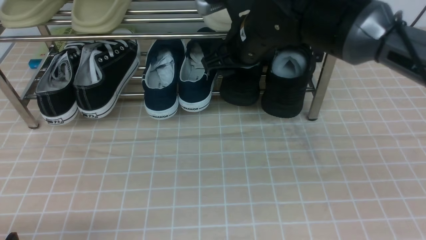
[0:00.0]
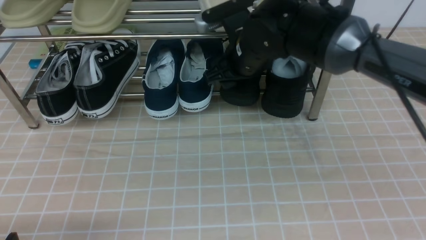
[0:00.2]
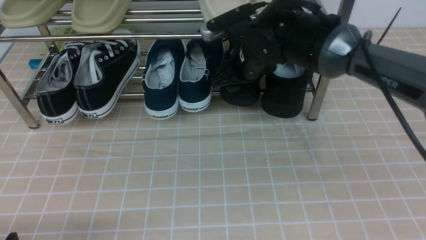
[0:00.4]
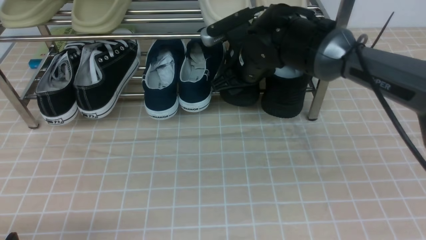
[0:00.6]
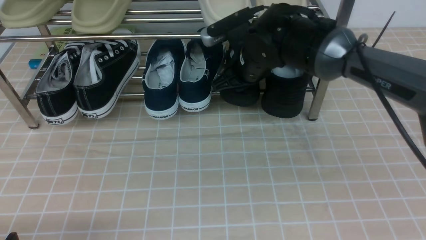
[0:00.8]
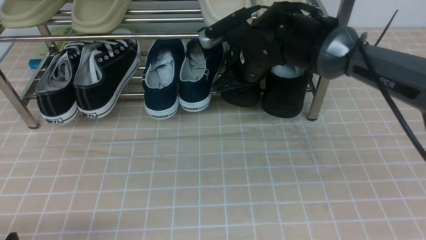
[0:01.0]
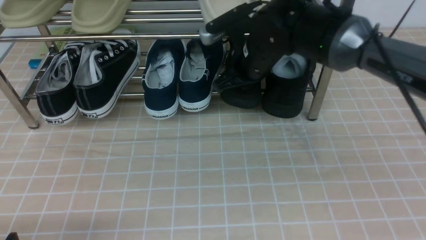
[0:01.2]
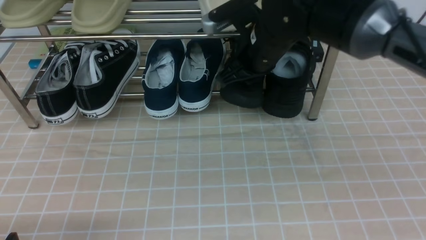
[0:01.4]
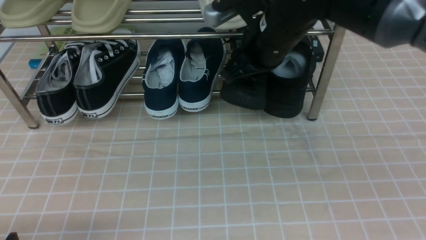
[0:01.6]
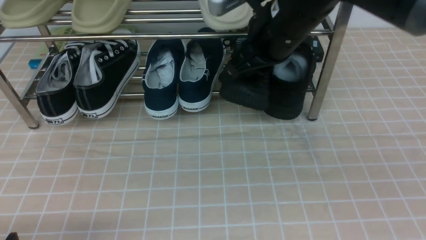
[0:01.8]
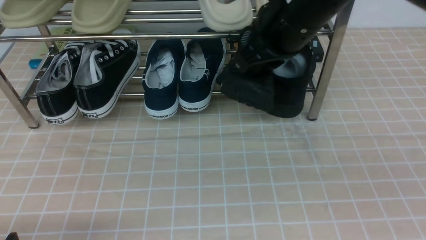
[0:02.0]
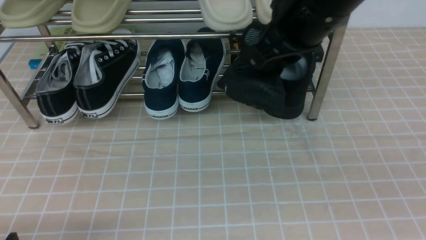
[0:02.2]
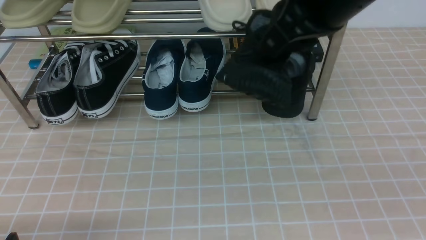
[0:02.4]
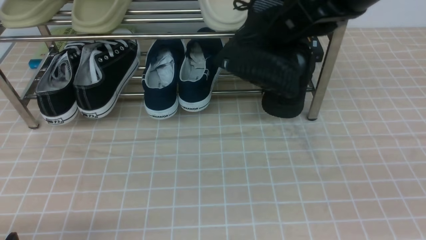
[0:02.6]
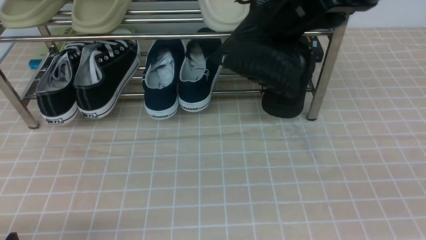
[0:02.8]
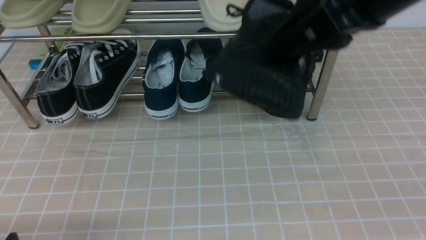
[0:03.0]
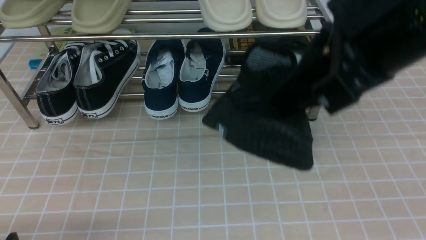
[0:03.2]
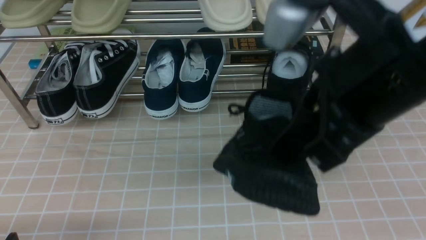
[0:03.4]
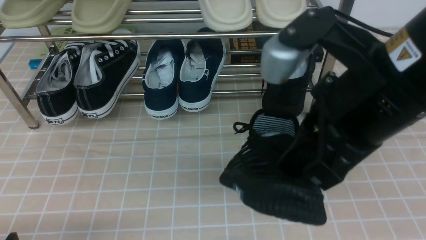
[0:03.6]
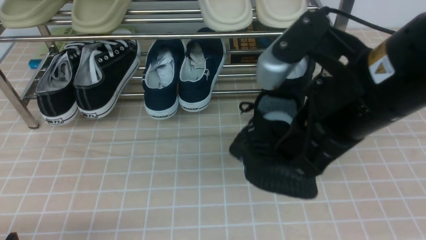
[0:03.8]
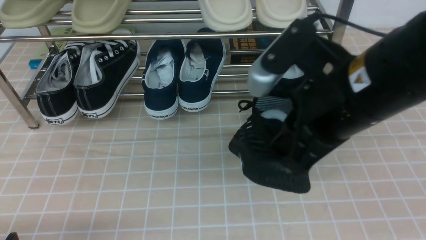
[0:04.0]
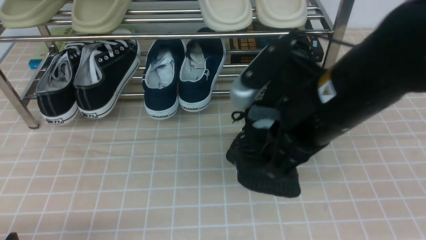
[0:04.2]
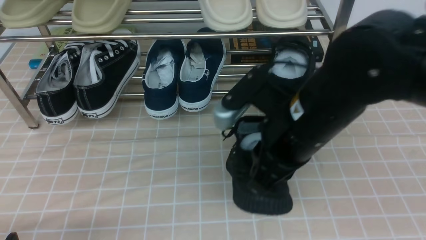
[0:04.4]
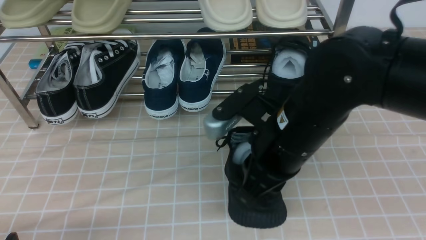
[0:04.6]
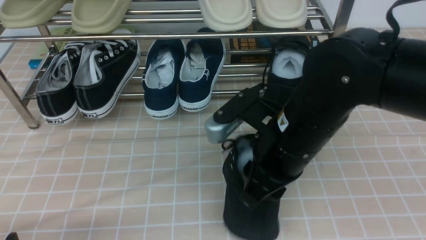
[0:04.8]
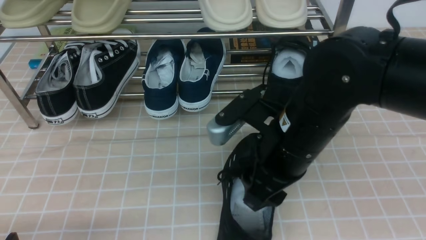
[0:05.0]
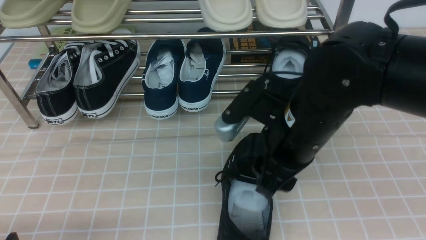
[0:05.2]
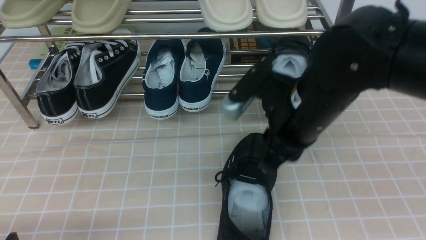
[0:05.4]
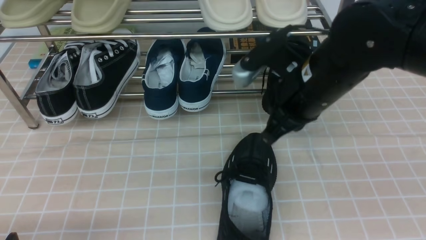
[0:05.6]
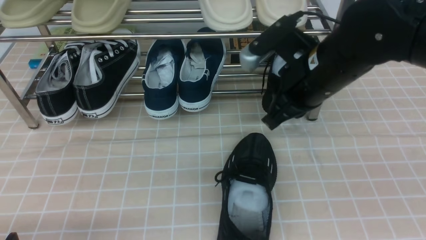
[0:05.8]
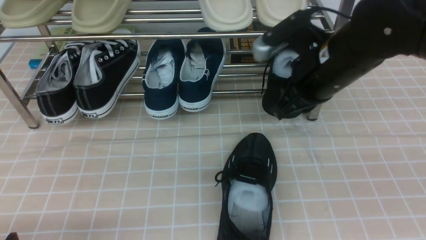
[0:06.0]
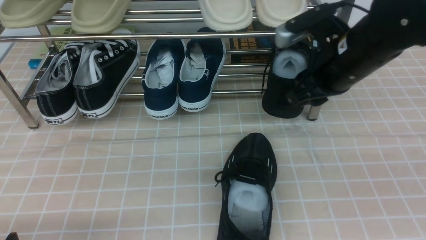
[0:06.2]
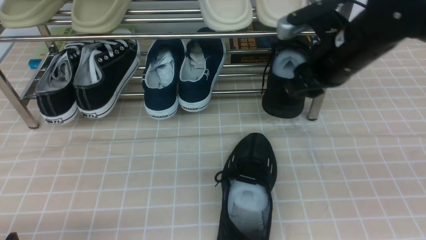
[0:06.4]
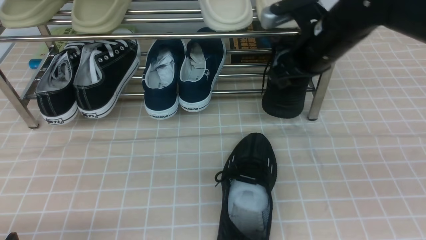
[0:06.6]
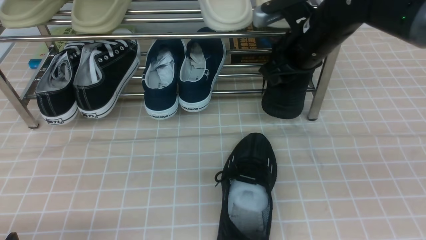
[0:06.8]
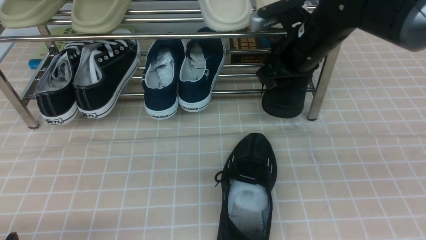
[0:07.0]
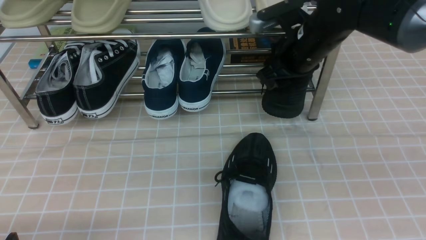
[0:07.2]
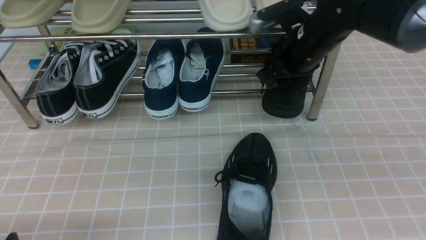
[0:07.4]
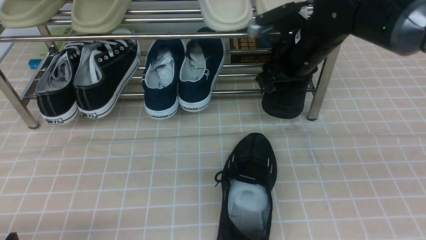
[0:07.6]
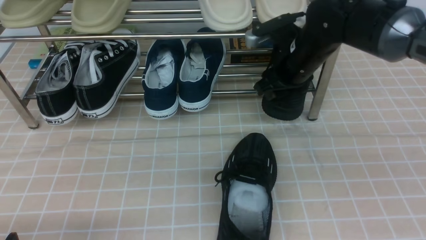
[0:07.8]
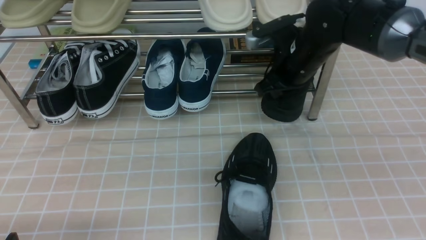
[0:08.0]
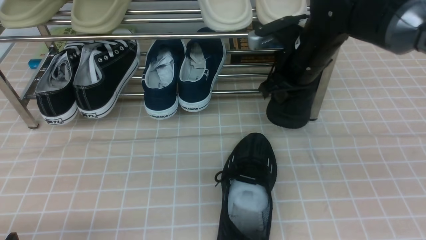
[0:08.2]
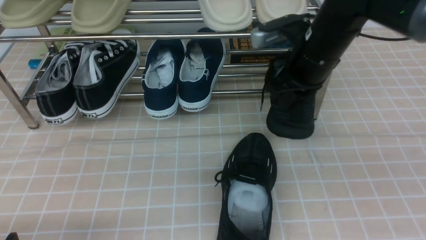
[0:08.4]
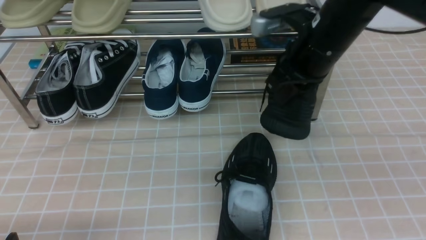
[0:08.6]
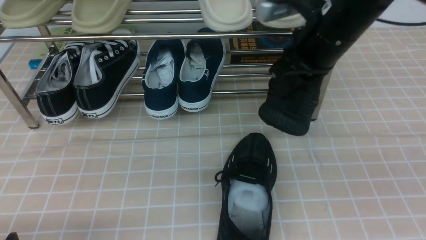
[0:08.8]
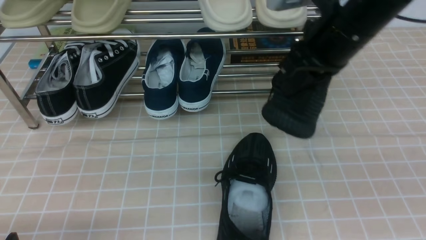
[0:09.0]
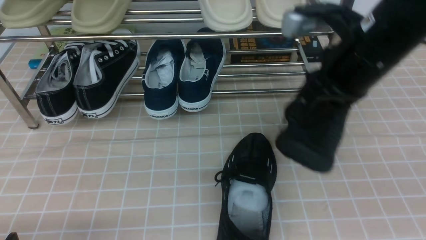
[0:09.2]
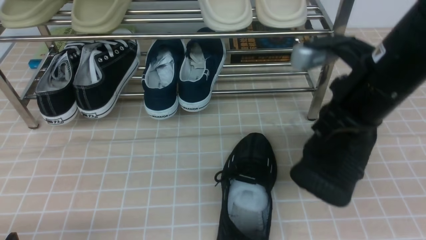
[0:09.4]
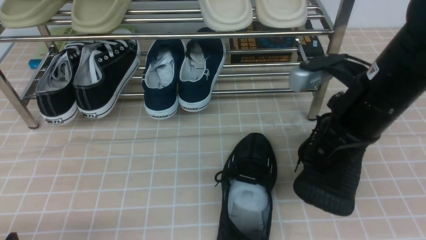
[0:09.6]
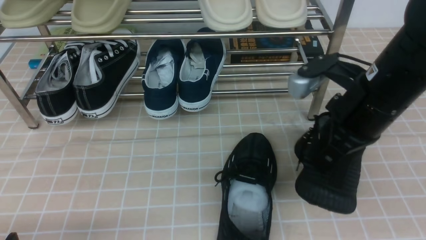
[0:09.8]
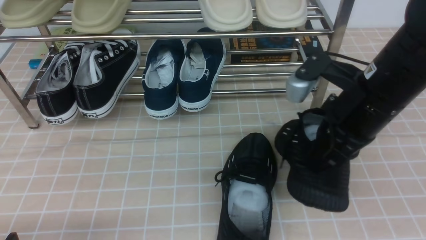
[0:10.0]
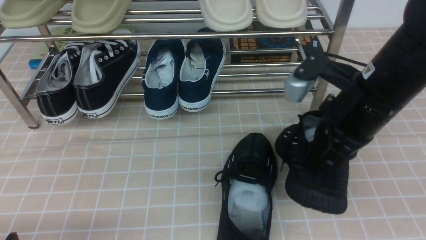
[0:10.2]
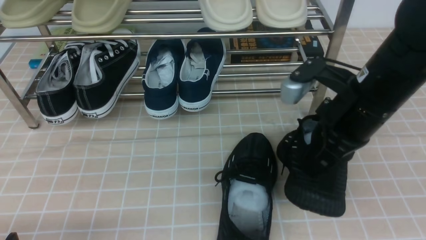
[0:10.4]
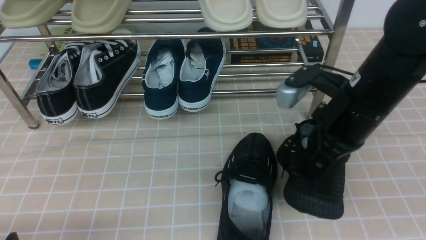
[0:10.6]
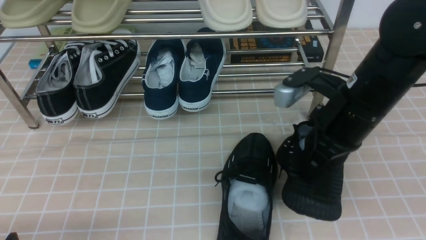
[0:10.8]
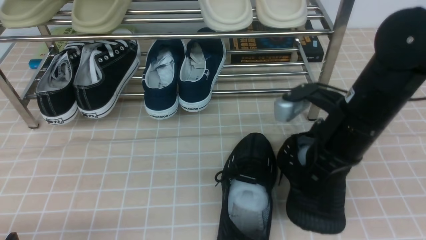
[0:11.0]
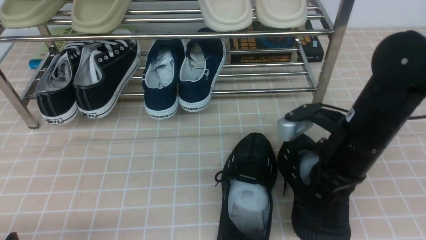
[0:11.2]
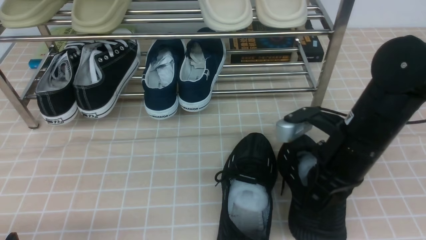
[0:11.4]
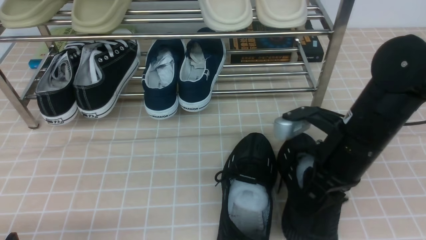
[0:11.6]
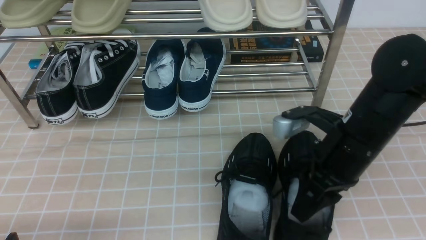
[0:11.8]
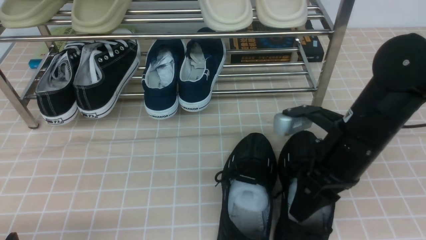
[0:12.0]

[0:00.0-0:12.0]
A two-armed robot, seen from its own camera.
Step, 0:01.0 to 0:05.4: use the right arm to take out the clamped shoe from the shoe rack and put it down.
Step, 0:05.6 to 0:08.0: use the right arm to clamp a shoe on the right side of the shoe rack.
Step, 0:08.2 to 0:11.8: use the right arm to take out the clamped shoe from the shoe rack and put it down.
0:00.0 to 0:01.6: The right gripper moves roughly 5 cm, and closes up.
0:01.6 to 0:03.0: The right gripper heads backward and upward, covering roughly 20 cm.
0:03.0 to 0:04.4: The right gripper travels downward by about 15 cm.
0:04.4 to 0:06.0: The right gripper moves forward and to the right, approximately 10 cm, and opens, then closes once more.
0:06.0 to 0:07.6: The right gripper moves forward, approximately 10 cm, and opens up.
0:07.6 to 0:09.0: The right gripper moves backward and upward, approximately 15 cm, and closes.
0:09.0 to 0:10.4: The right gripper heads downward, covering roughly 5 cm.
0:10.4 to 0:12.0: The right gripper opens.

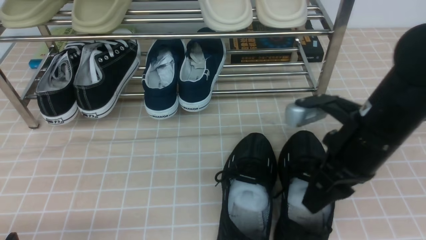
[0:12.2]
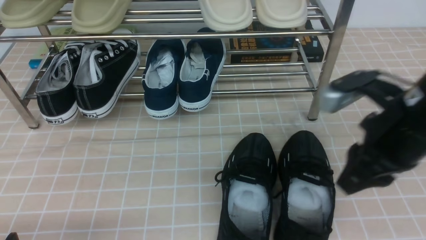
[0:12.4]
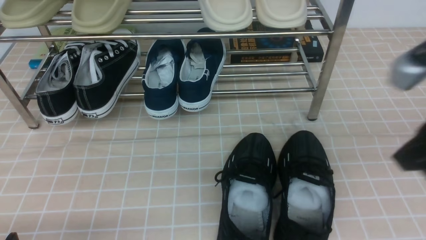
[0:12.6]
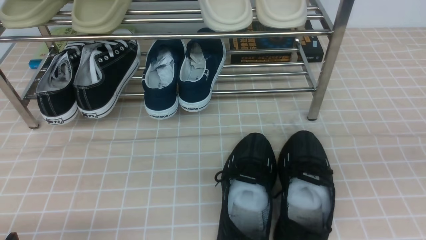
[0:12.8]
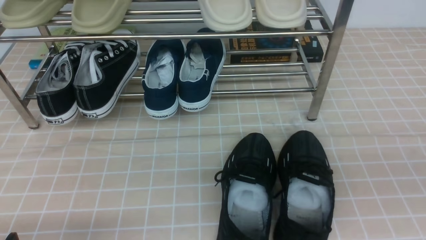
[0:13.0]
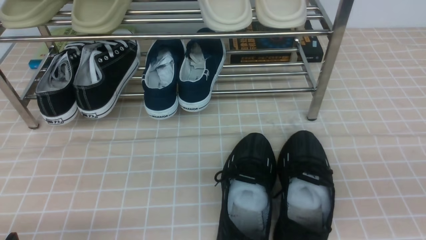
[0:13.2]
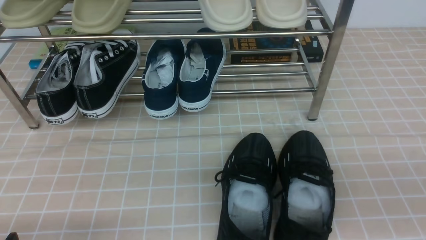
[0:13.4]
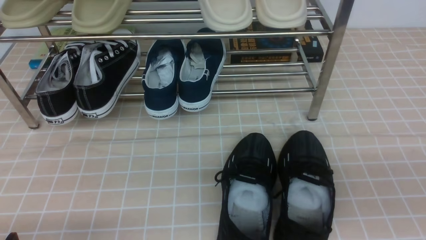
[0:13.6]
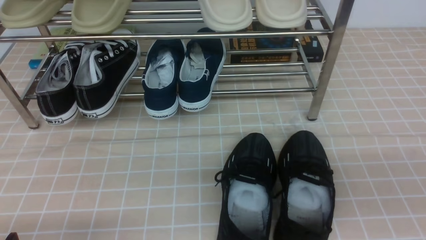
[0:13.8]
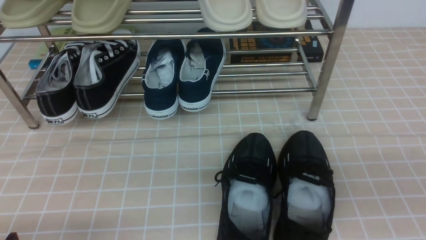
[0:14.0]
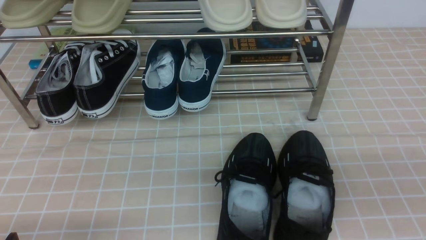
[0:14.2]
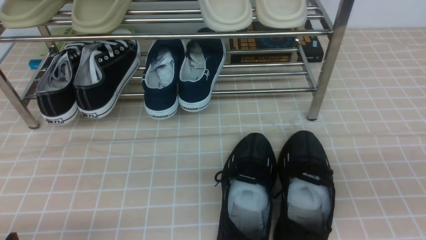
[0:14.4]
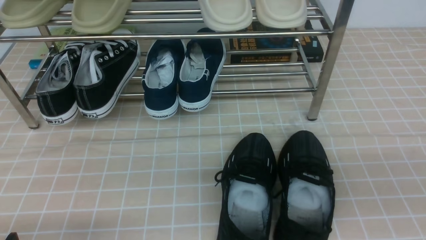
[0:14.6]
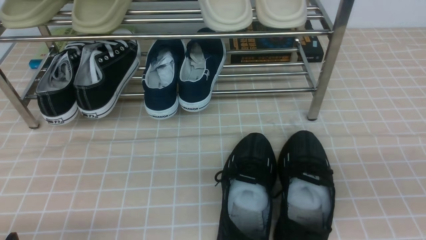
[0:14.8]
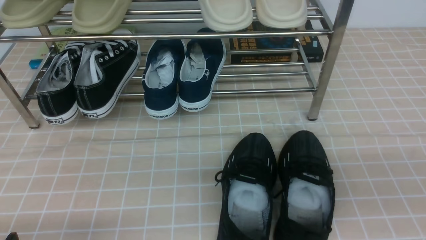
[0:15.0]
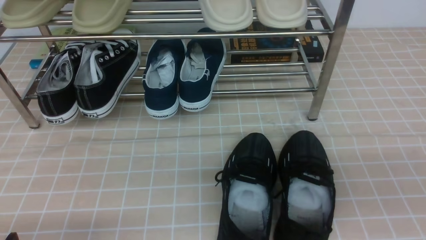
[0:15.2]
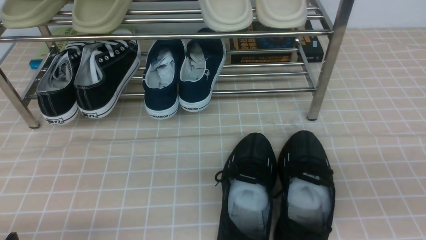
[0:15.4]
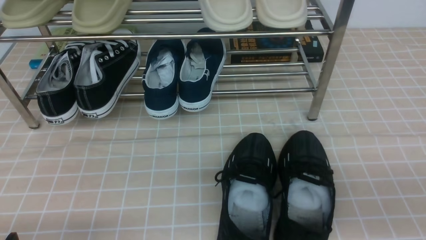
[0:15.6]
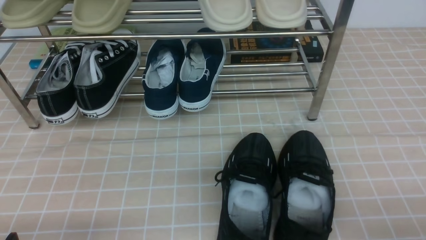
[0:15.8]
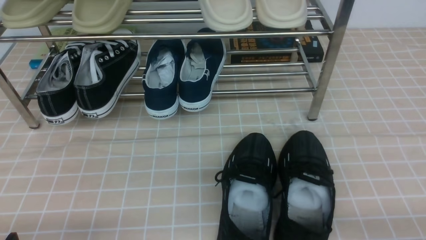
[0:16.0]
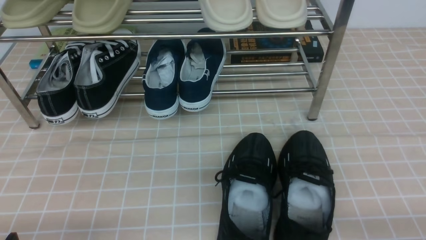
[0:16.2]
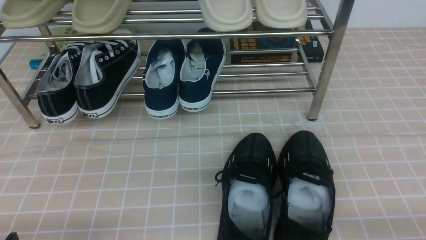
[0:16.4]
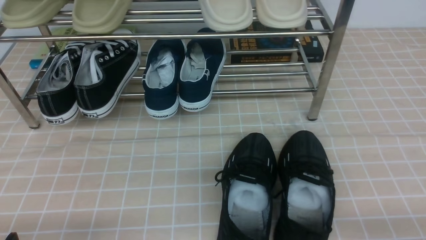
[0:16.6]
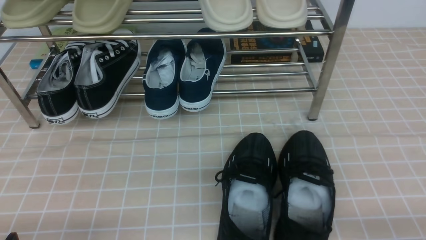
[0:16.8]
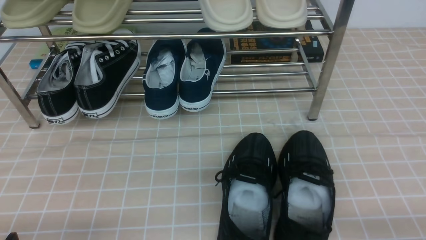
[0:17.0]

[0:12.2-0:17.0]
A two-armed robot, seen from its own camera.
0:12.2 to 0:13.8: The right gripper travels backward and to the right by approximately 20 cm, and closes.
0:15.4 to 0:17.0: The right gripper moves downward, approximately 10 cm.
